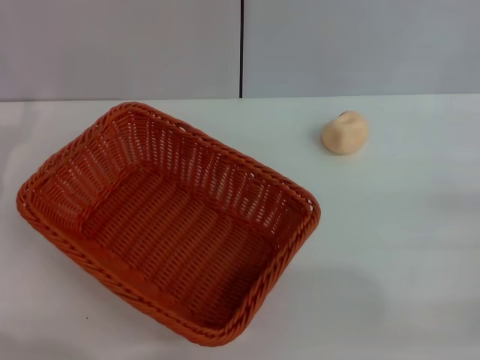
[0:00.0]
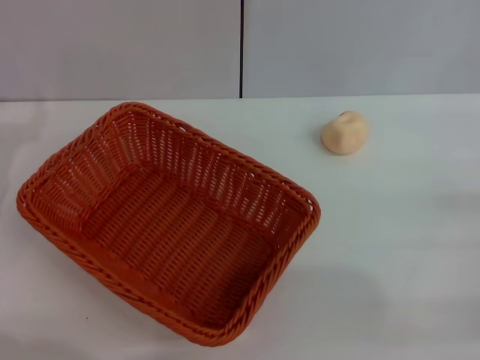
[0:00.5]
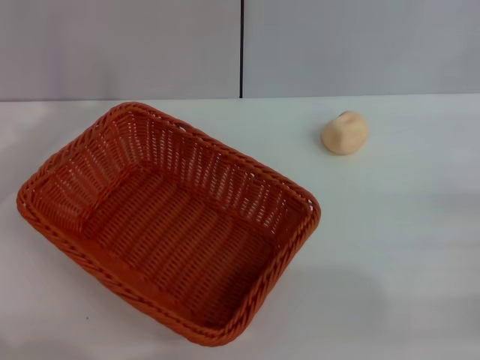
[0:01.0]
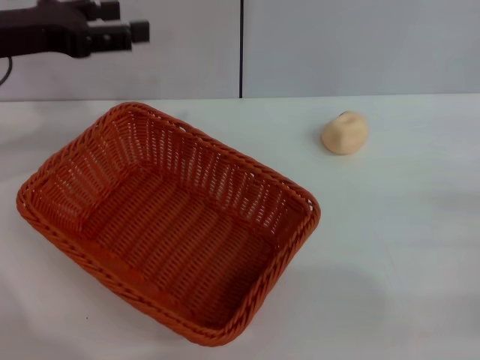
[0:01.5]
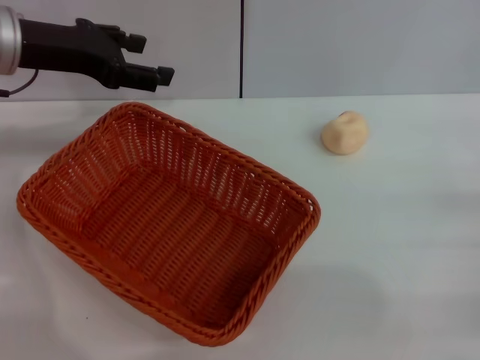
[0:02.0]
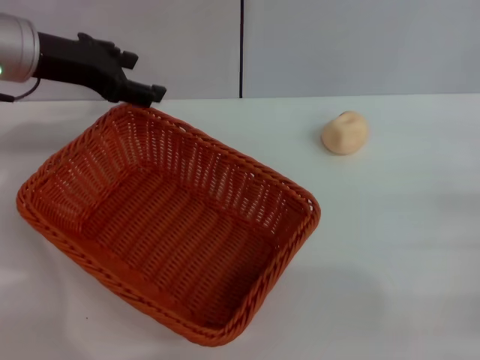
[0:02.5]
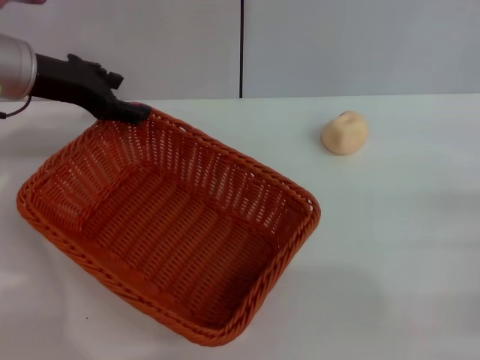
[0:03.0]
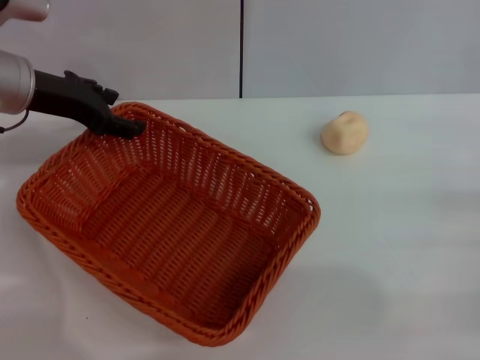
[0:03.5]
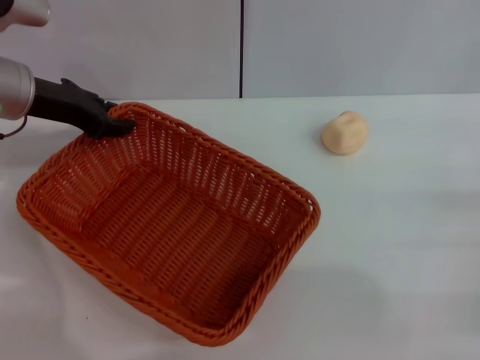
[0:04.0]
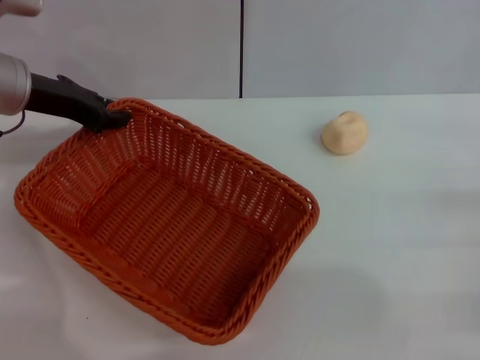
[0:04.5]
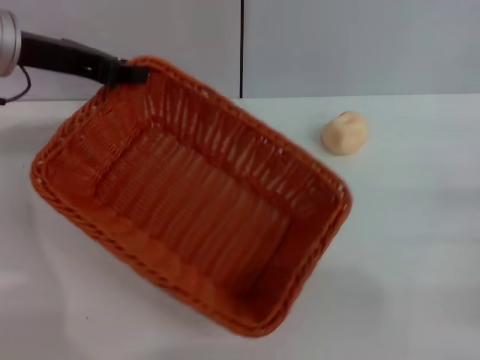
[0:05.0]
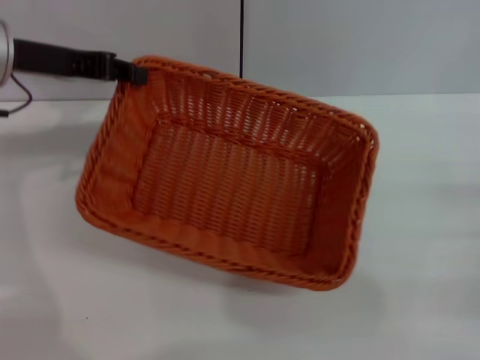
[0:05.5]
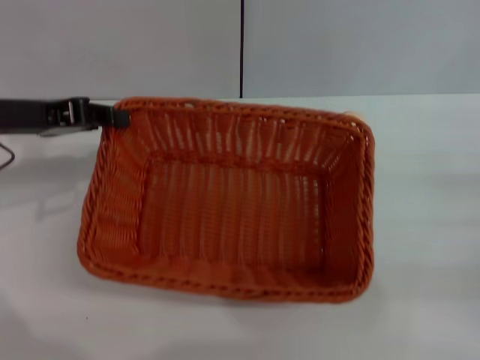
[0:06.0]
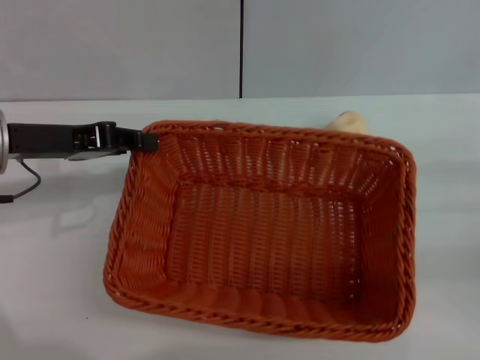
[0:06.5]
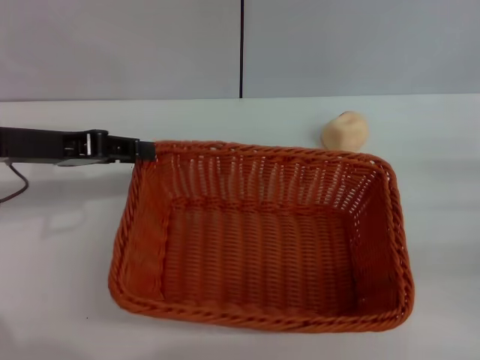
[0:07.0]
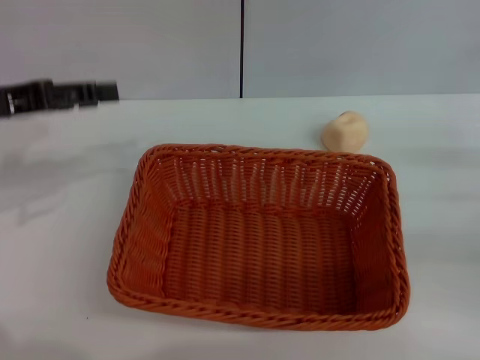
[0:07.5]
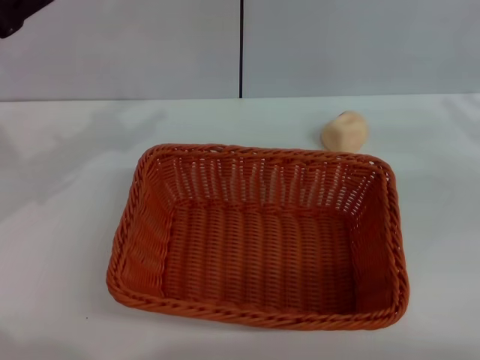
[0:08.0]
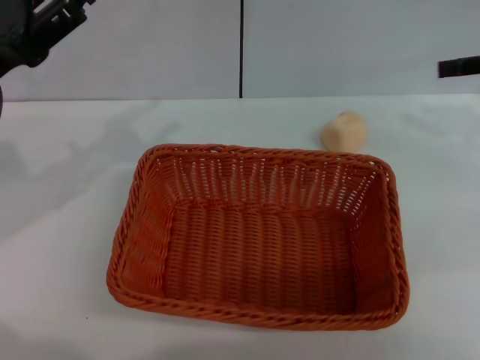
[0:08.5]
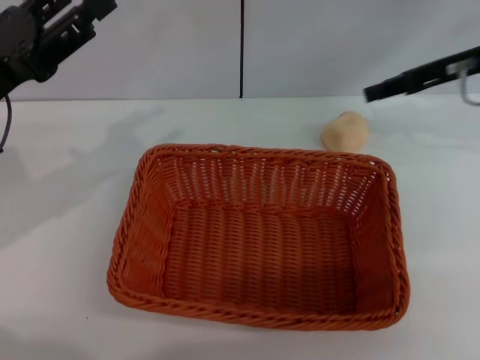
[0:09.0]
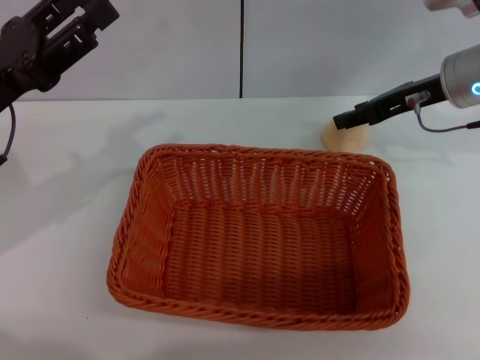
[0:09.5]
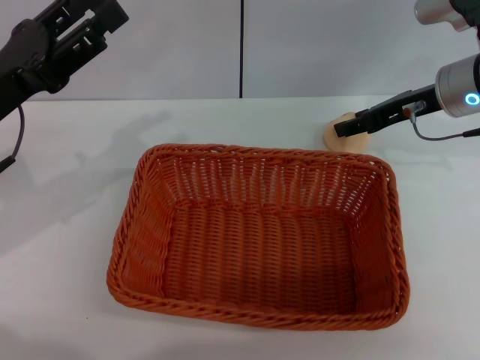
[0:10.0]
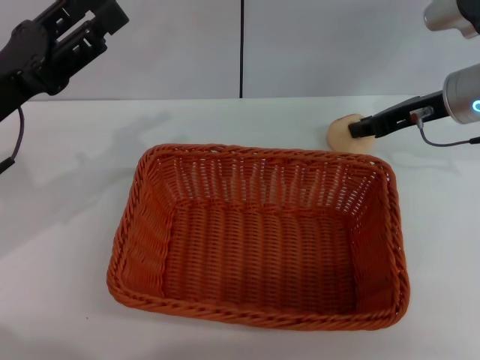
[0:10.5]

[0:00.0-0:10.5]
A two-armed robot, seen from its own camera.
Step, 0:00.0 to 0:07.0: Move the basket to the center of view with the left gripper.
0:00.0 to 0:02.0: The left gripper goes roughly 20 cm forward, upward and to the right.
0:02.0 to 0:04.0: There are only small adjustments of the grippers.
0:04.0 to 0:06.5: The left gripper shifts roughly 5 cm backward, and closes up.
0:06.5 to 0:08.5: The left gripper opens, while the right gripper goes approximately 20 cm upward and forward.
0:08.5 to 0:10.5: The right gripper travels to the left and downward by approximately 15 cm.

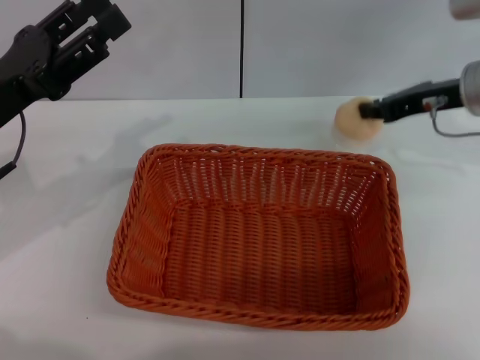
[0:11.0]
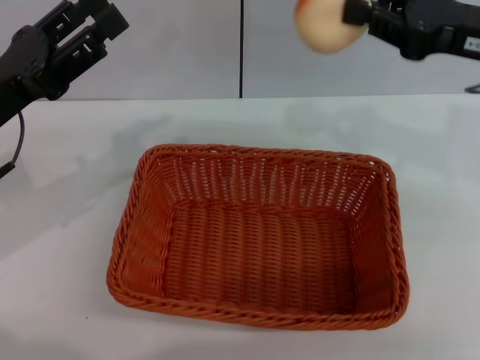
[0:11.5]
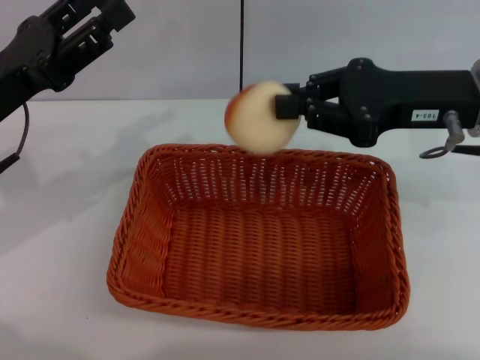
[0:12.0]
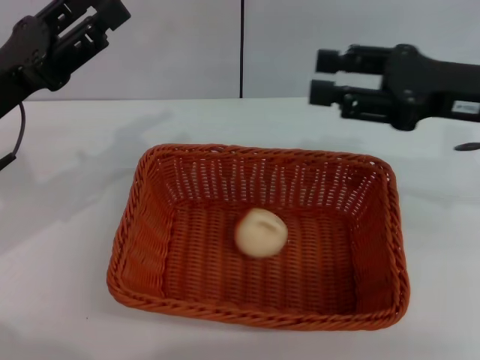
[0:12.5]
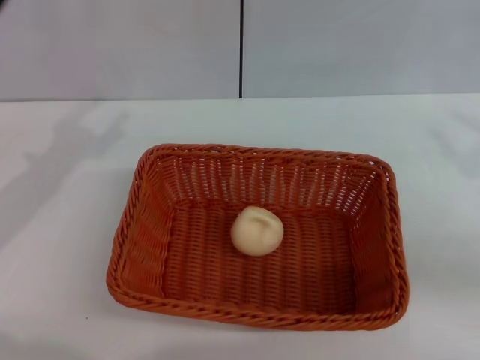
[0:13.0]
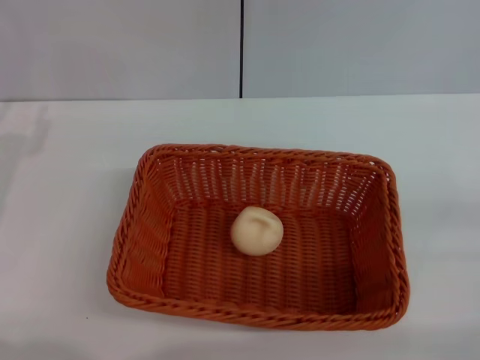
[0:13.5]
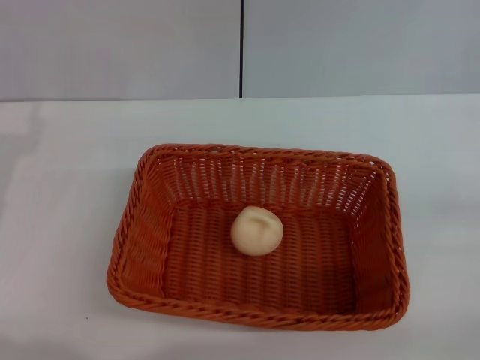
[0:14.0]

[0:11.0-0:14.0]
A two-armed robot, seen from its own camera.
Step, 0:11.5 to 0:12.0: Place the egg yolk pastry into the basket with the right gripper.
0:11.0 to 0:12.5: The right gripper shifts roughly 10 cm backward, and opens up.
0:12.5 to 0:14.0: The left gripper travels to the left by roughly 5 cm. The right gripper moves to the right, backward and downward, about 20 cm, and opens its fingers.
